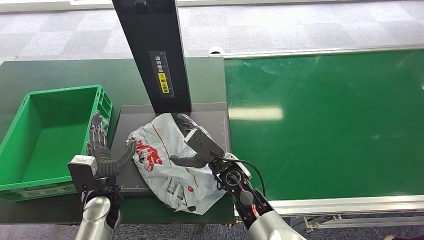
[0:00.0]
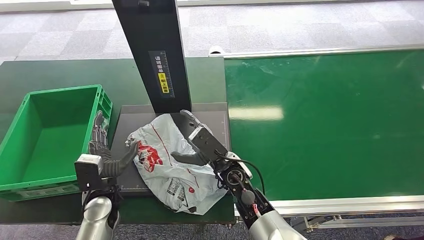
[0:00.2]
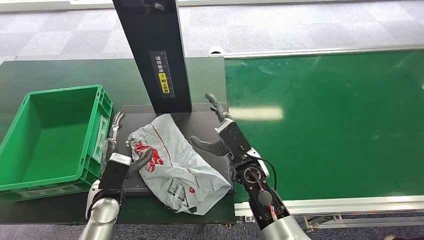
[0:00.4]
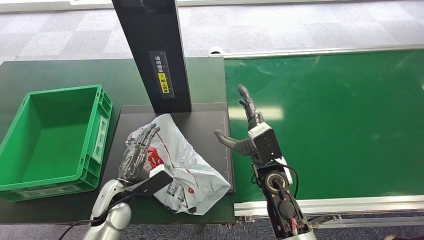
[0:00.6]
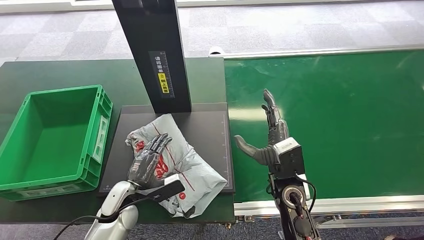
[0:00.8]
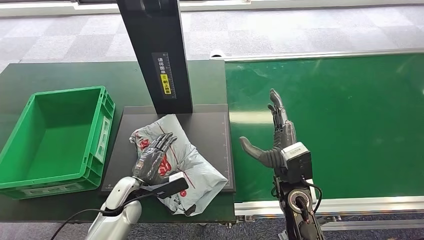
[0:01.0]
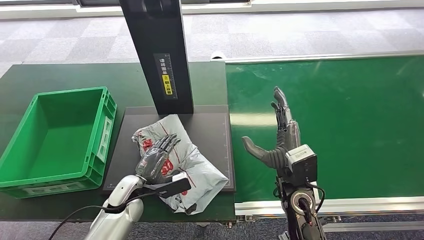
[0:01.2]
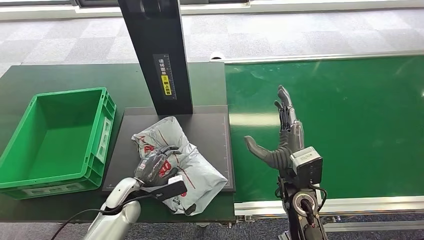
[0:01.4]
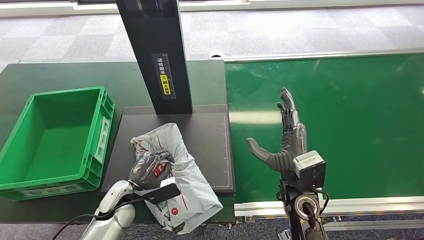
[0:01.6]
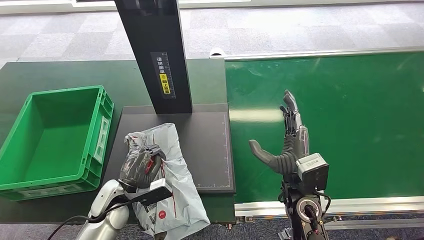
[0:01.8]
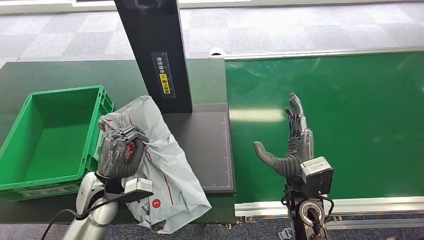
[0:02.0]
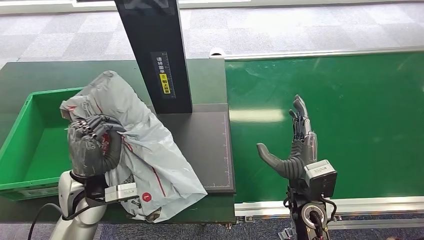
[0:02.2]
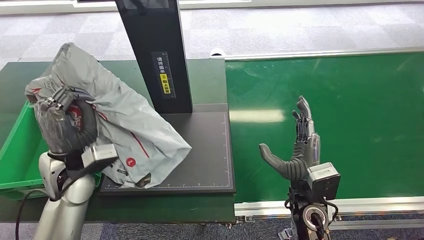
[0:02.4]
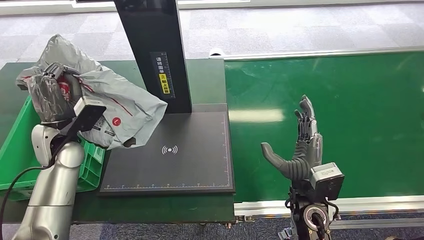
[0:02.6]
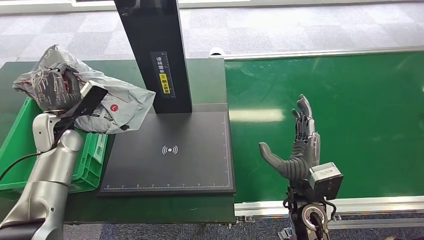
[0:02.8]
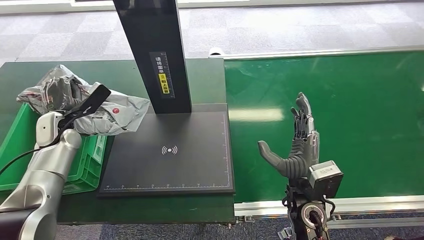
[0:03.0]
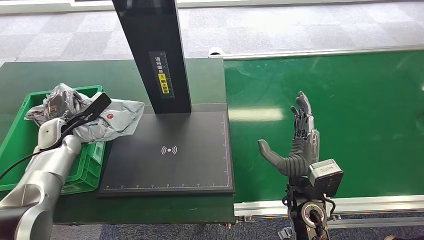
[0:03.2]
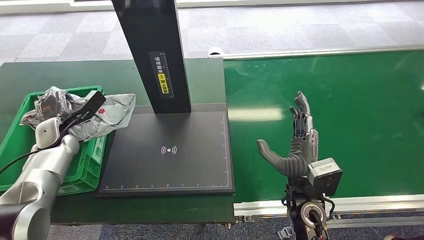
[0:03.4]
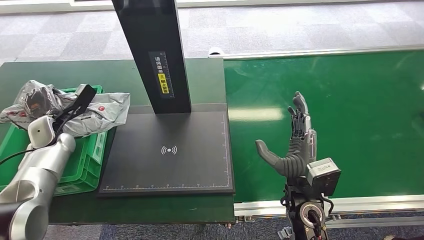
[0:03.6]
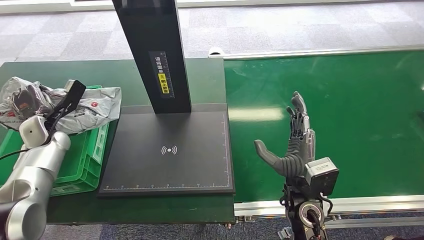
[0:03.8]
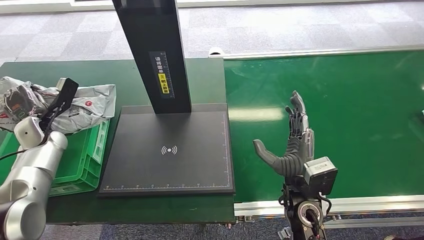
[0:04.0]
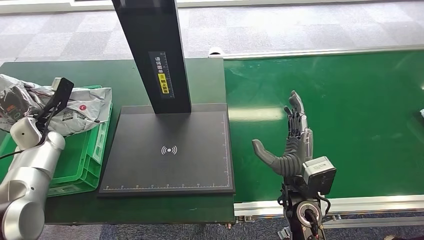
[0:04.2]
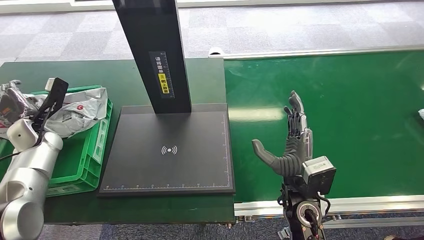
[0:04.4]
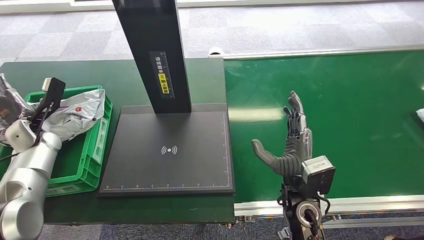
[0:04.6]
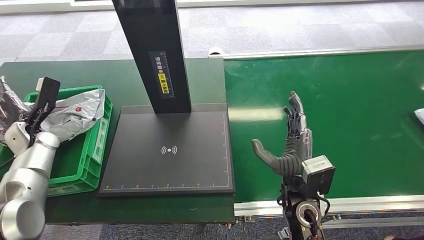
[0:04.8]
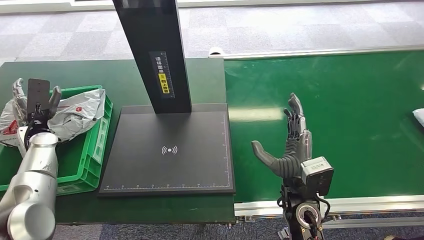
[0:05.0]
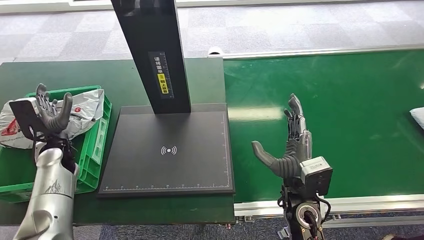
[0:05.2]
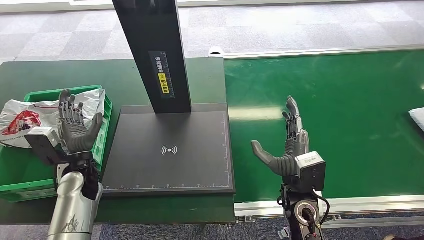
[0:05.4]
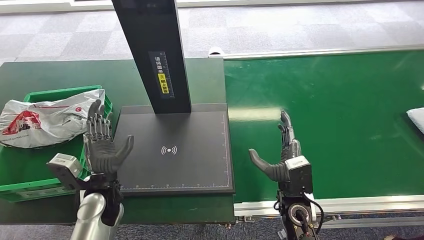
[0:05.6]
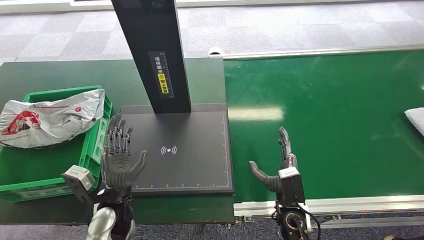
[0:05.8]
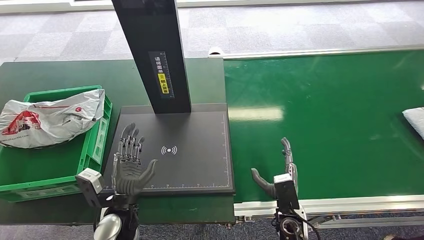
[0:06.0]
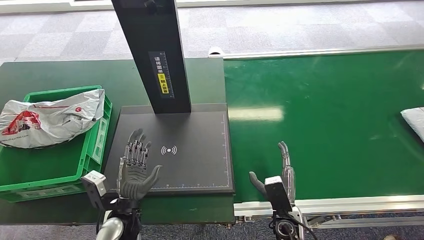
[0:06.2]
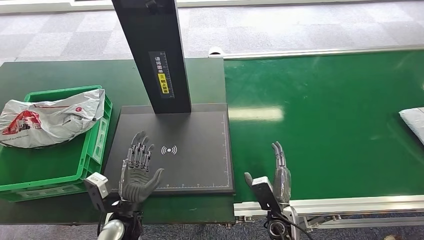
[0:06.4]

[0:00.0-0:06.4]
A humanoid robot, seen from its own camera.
Task of the whole recording: Weigh the package on the weighing device and place it in the left basket.
Step, 0:00.0 to 0:01.0: Place the package onto the inbound machine.
Step, 0:02.0 to 0:03.2: Pick up the package from the inbound machine.
Step, 0:03.8 to 0:06.4: Place the package into the parcel locker.
0:03.2 to 0:04.8: The left hand changes place by some 5 cm.
0:04.8 to 0:06.4: The left hand goes approximately 35 cm to the right and backward, while the right hand moves downward, approximately 15 cm.

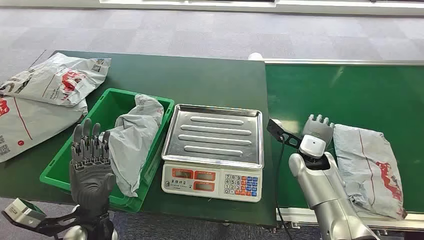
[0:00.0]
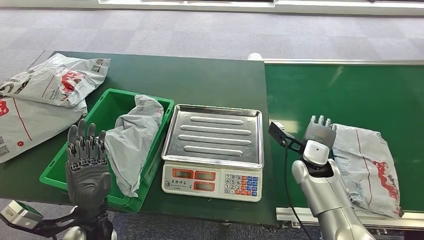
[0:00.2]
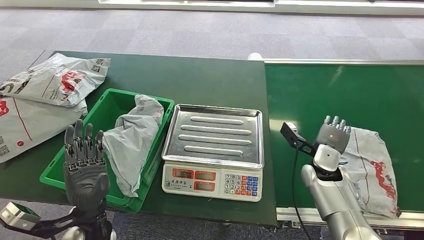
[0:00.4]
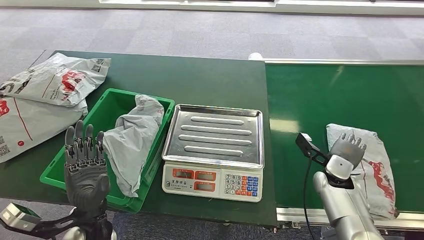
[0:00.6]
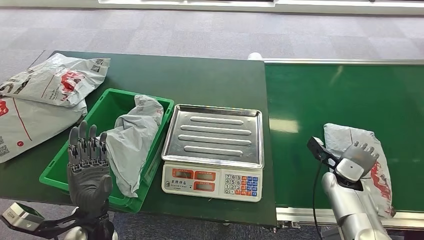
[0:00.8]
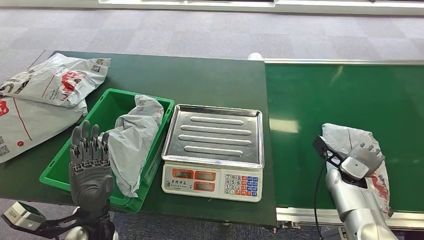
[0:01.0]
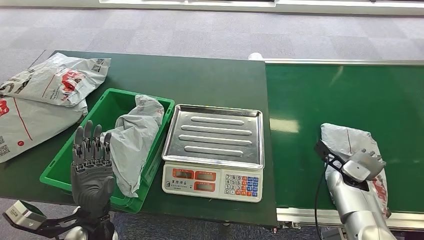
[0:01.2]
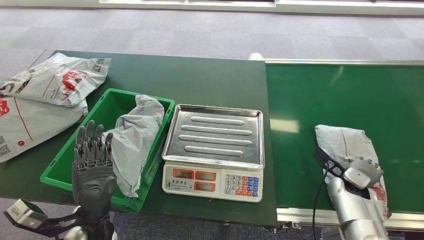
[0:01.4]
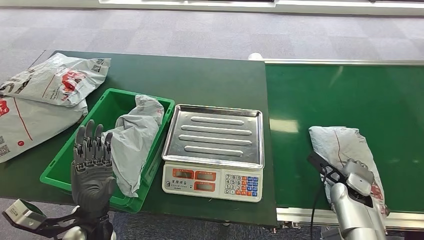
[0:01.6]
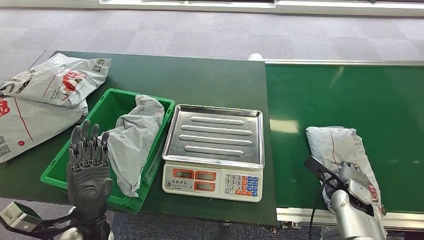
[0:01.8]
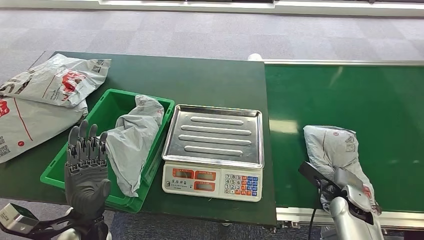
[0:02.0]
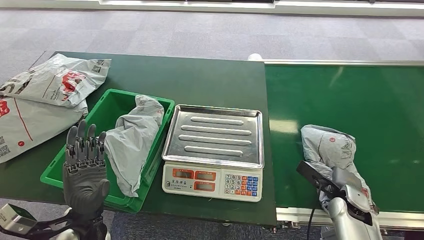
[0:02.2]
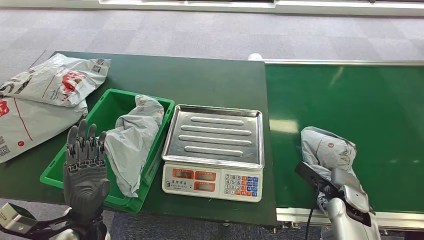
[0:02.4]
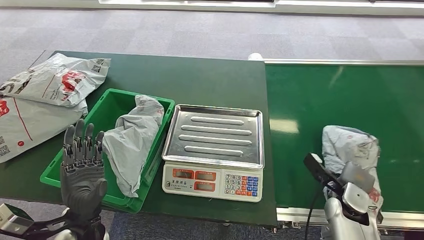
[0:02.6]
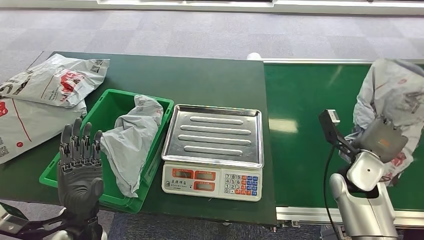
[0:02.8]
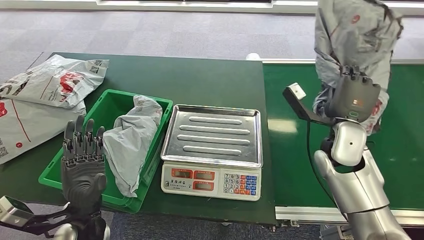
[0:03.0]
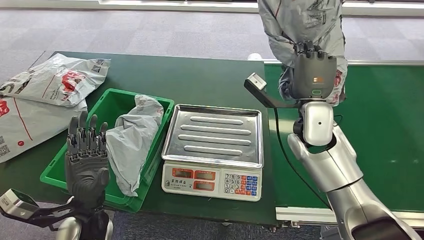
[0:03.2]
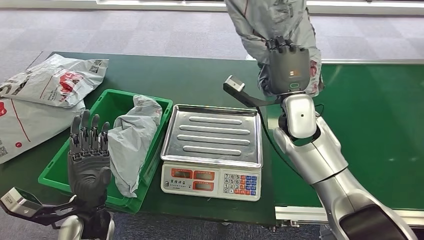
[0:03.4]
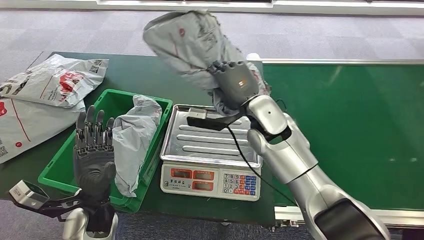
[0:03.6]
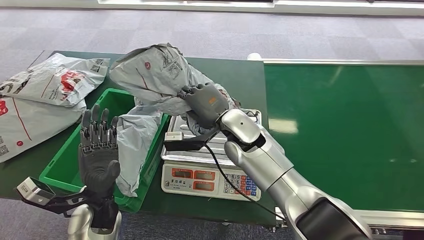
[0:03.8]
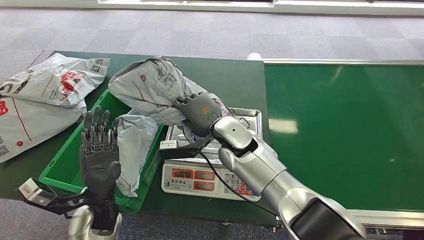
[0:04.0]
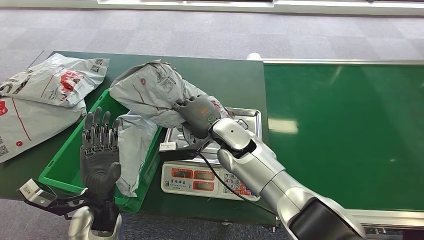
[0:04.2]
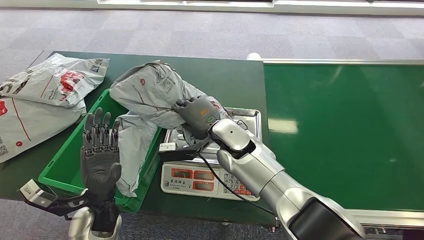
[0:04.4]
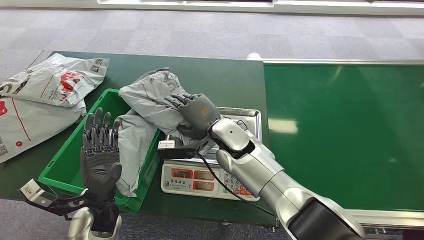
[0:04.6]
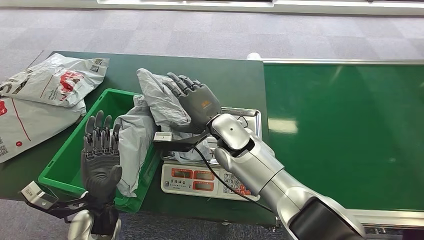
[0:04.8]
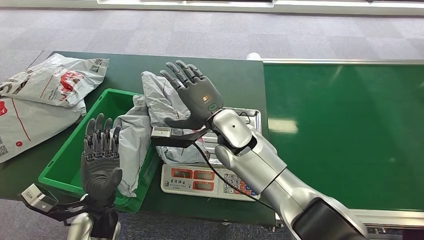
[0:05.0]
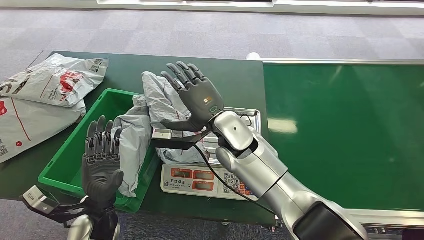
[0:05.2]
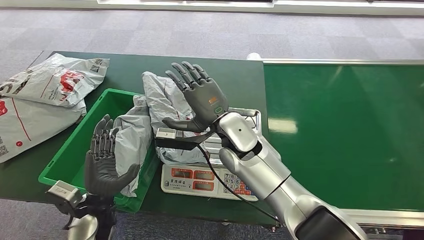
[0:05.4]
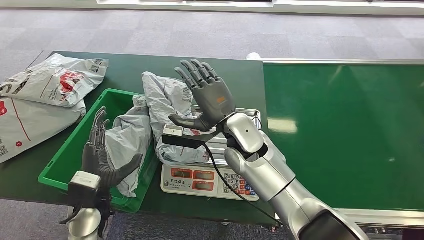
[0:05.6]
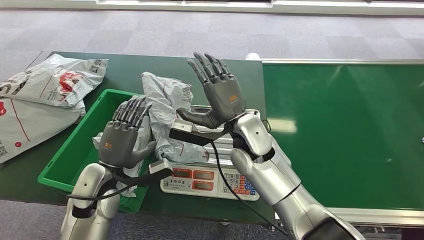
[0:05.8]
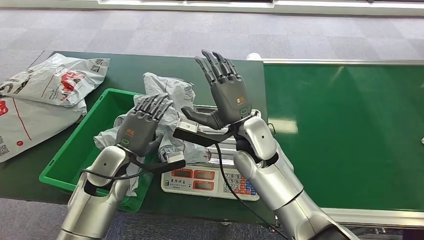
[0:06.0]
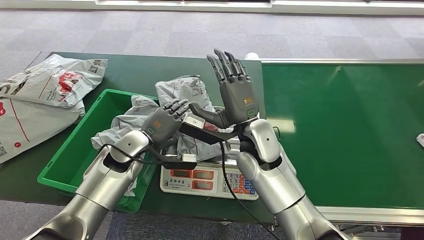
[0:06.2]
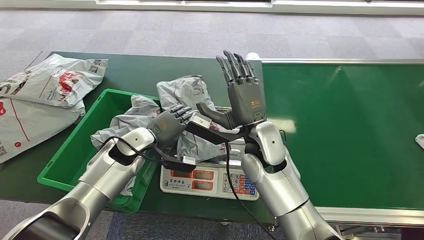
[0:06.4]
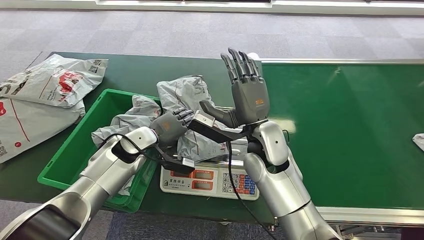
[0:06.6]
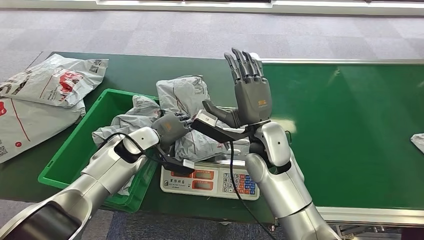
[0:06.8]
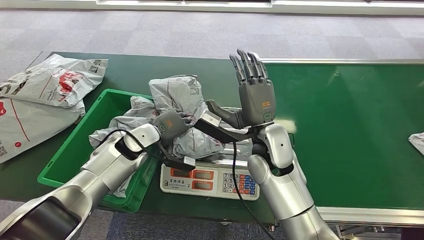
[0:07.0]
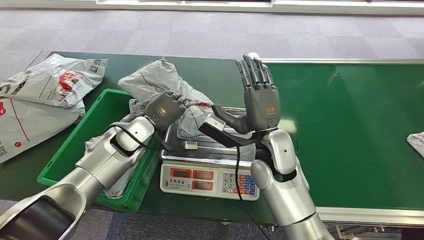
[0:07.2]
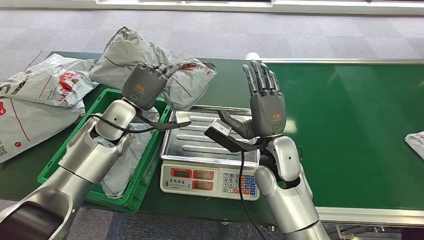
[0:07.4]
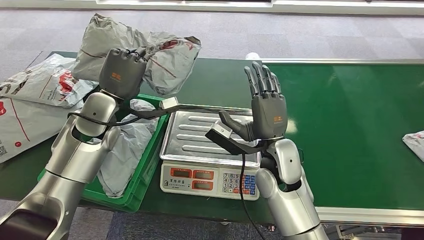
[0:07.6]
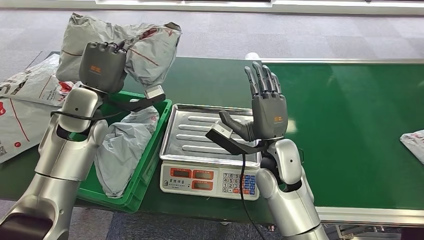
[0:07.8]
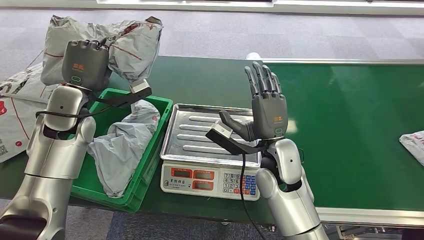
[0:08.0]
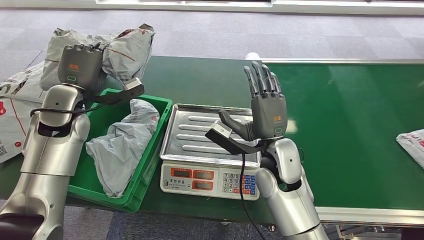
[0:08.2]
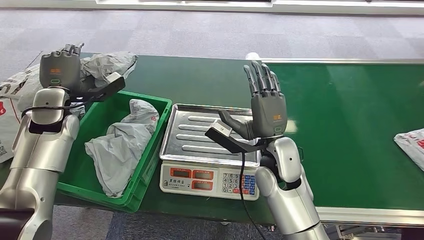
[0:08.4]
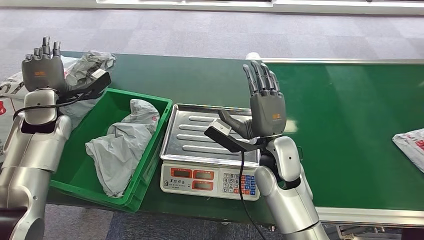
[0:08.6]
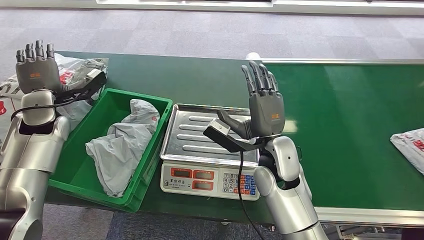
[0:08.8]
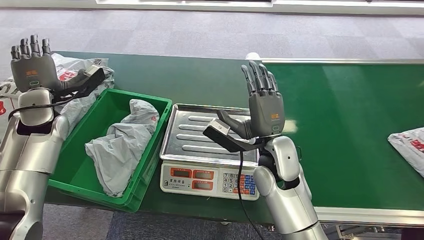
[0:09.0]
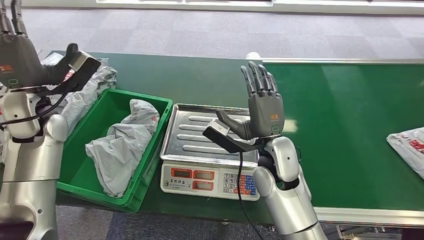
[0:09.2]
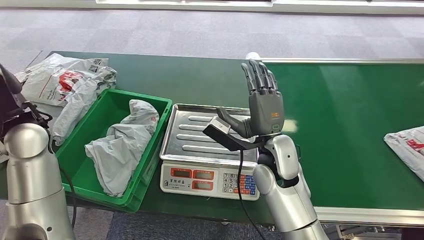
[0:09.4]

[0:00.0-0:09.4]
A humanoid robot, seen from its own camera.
Task of the whole recording: Weigh the package on the weighing device and place it in the left basket.
Step, 0:00.0 to 0:03.2: Pick up the package from the conveyor belt.
Step, 0:03.4 to 0:05.4: Place the package onto the inbound machine.
Step, 0:05.6 to 0:07.6: Pick up the package from the inbound machine.
Step, 0:08.0 to 0:09.4: Place the package into the parcel locker.
